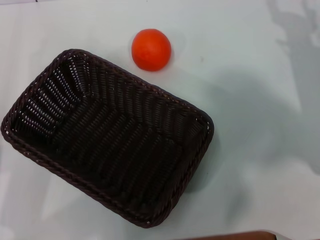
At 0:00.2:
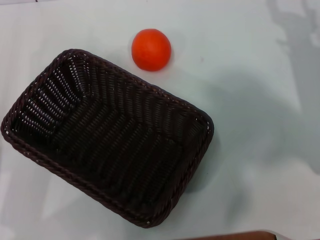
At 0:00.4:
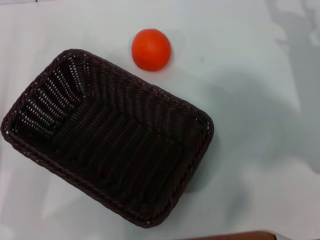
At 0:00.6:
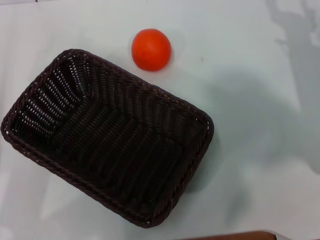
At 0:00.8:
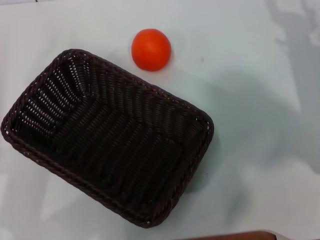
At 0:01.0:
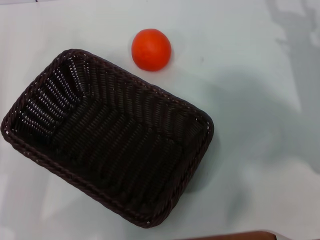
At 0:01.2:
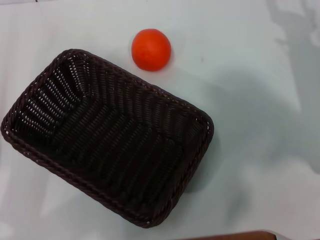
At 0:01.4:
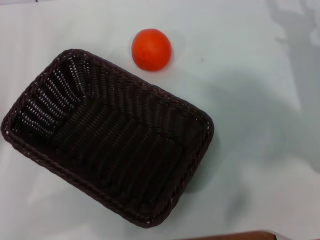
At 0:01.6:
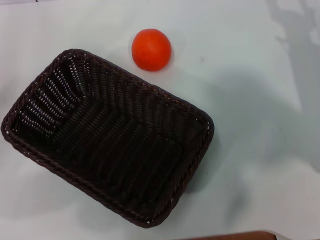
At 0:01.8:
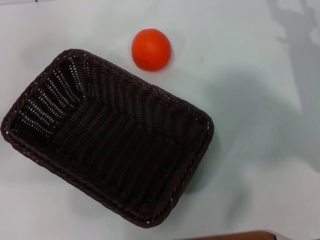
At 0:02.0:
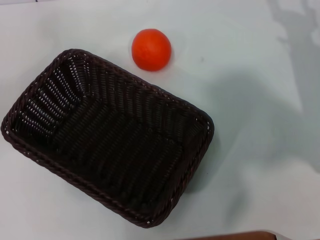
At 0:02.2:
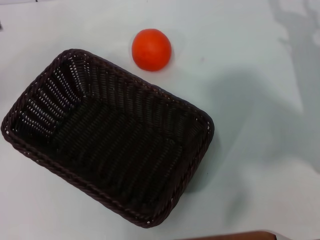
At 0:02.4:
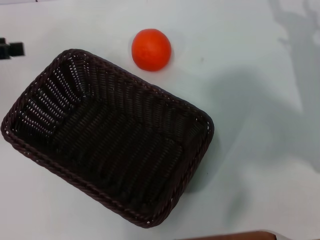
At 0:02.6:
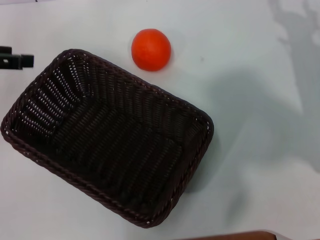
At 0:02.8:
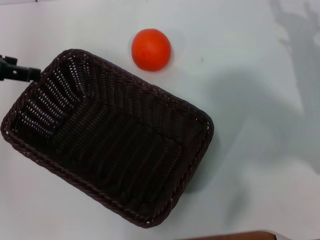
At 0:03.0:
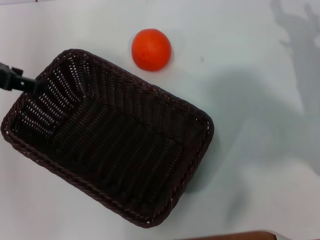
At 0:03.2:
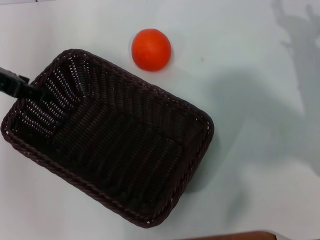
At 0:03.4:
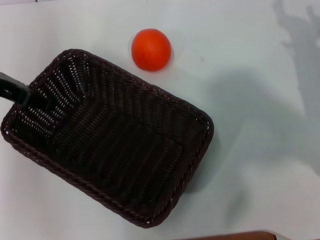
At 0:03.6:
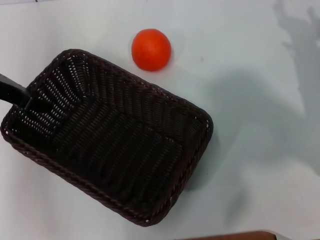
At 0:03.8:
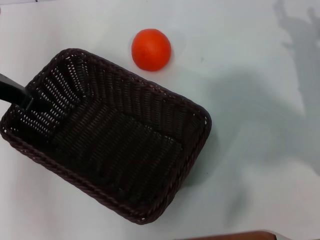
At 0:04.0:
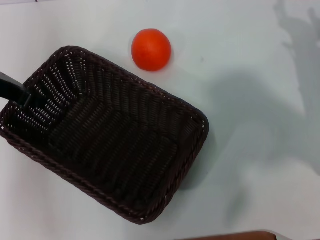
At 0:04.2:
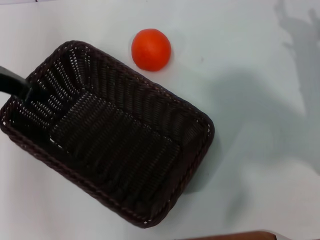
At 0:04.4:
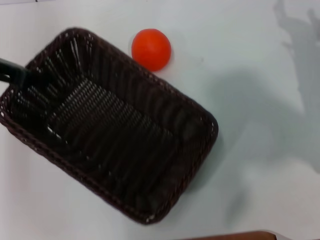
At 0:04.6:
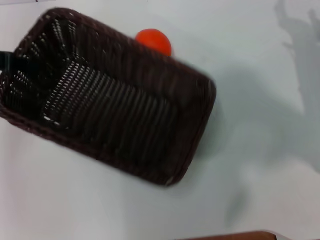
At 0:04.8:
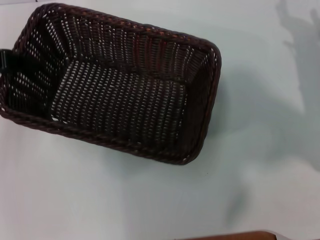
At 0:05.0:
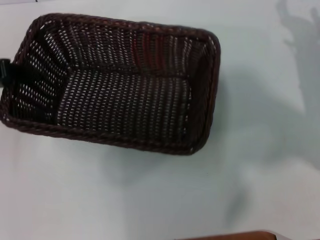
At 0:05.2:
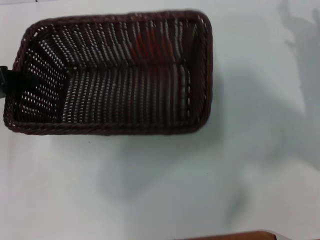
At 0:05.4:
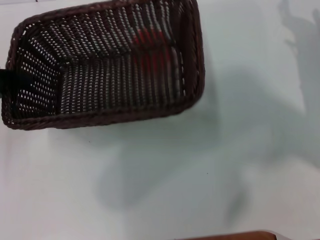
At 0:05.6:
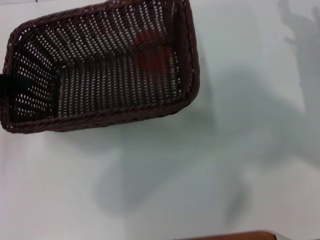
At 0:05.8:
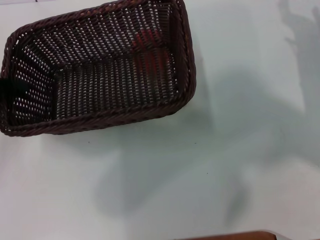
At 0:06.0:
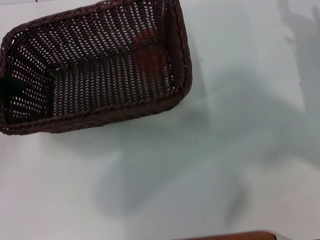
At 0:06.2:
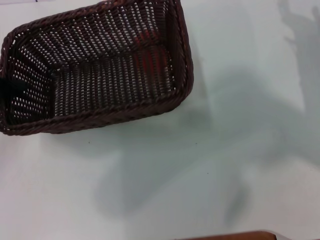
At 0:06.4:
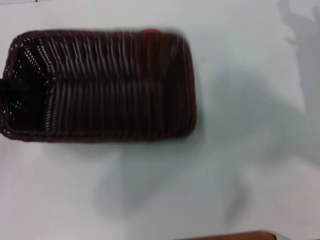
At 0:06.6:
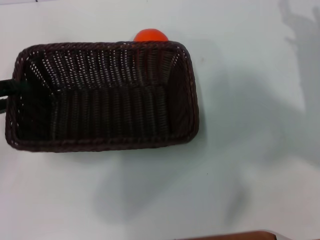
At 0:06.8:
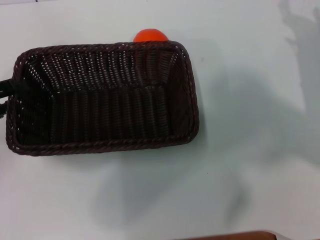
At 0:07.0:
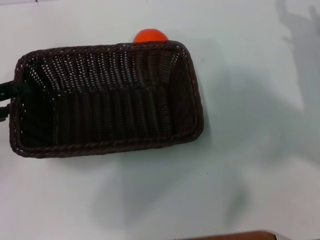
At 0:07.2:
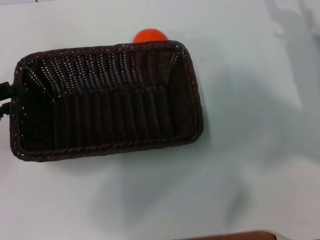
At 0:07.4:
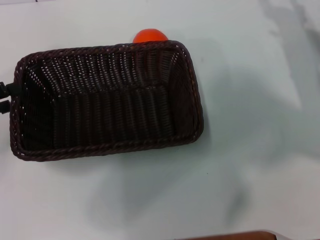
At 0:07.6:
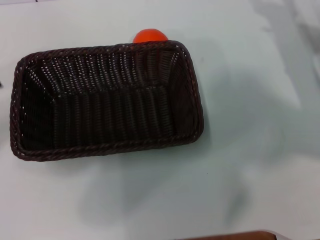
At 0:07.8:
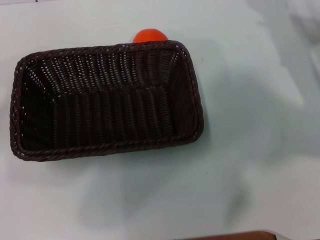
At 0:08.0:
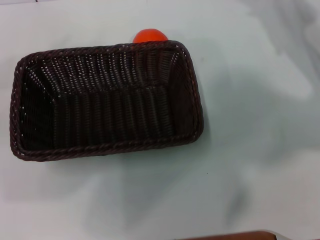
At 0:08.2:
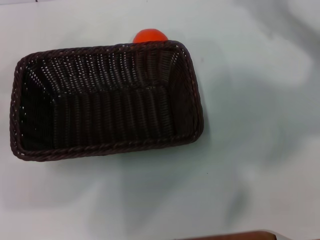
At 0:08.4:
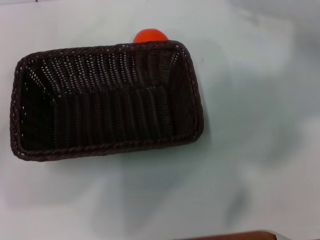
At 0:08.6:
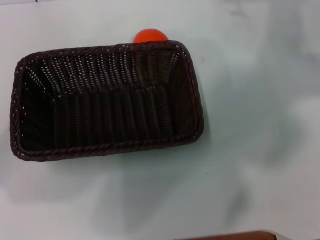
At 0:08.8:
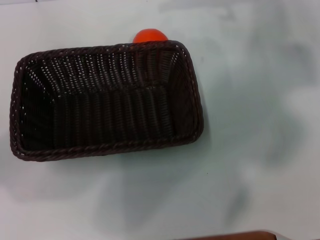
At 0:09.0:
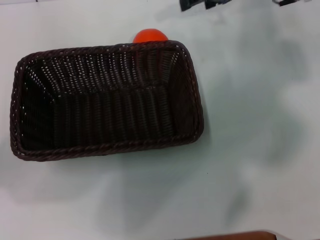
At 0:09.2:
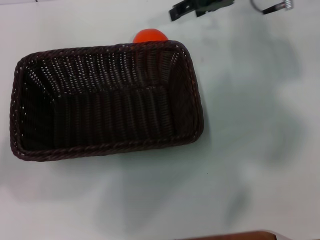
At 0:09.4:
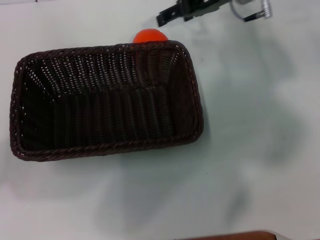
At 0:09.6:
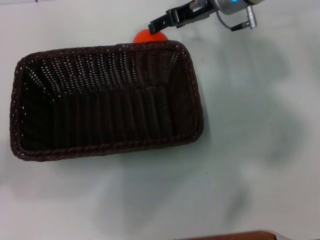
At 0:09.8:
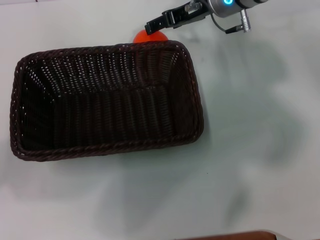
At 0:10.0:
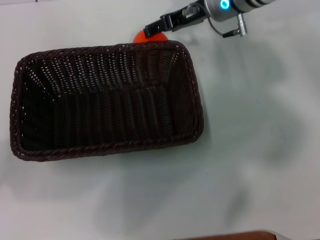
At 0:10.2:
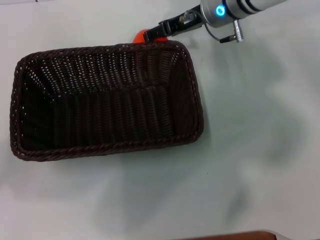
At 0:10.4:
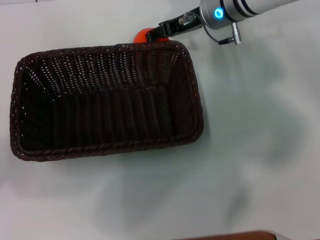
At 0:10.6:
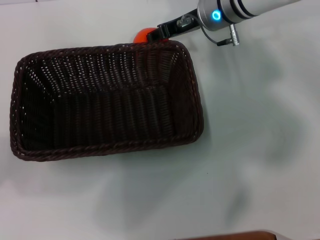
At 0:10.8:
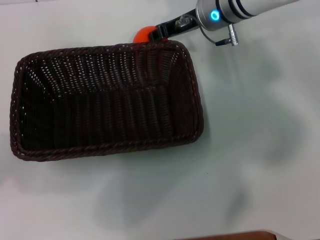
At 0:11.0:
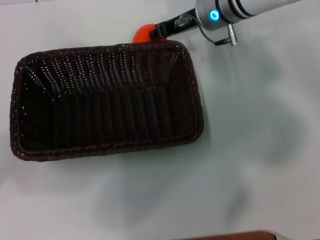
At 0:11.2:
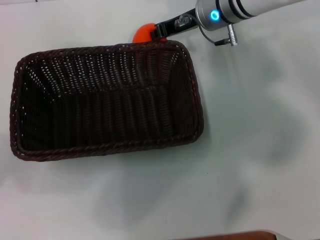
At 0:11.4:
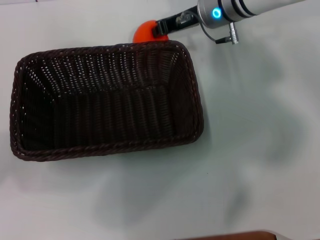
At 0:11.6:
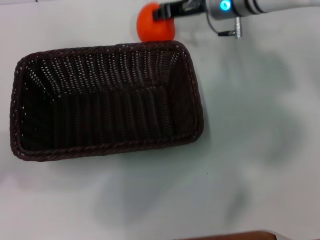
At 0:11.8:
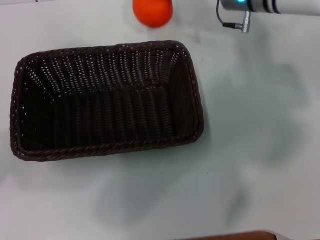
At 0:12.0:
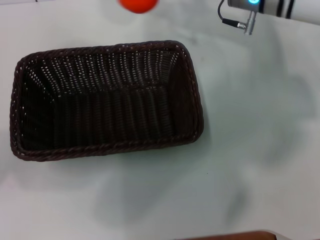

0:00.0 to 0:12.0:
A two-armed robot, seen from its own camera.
Task of the whole recording: the left gripper pick up the black basket and place it horizontally in the middle of the table, the right gripper pick up the orange and place it into the black basket.
Step, 0:00.0 to 0:04.2: Pick up the dark basket with the left gripper.
Step, 0:04.4 to 0:07.4: Place the dark basket in the center of view with the left gripper.
Step, 0:07.6 to 0:11.6: Pick up the orange with the right gripper.
0:01.6 to 0:03.0: The left gripper travels forward, upward and to the right by roughly 15 cm.
0:03.0 to 0:04.4: The left gripper closes.
0:04.4 to 0:06.0: The left gripper goes approximately 10 cm downward, to the left and backward.
0:06.0 to 0:07.6: The left gripper ends up about 5 cm from where it was, and opens up.
0:07.6 to 0:09.0: The right gripper travels upward, forward and to the left by roughly 20 cm. Meanwhile the left gripper moves roughly 5 cm.
0:09.0 to 0:10.4: The right gripper goes some 10 cm to the left and downward.
0:10.4 to 0:12.0: The right gripper moves about 5 cm, and closes its fingers.

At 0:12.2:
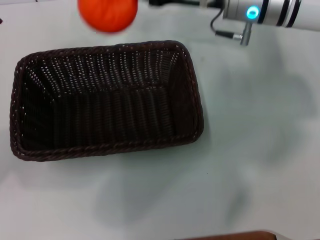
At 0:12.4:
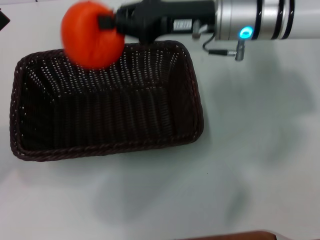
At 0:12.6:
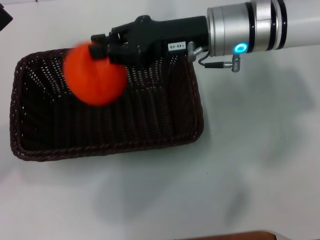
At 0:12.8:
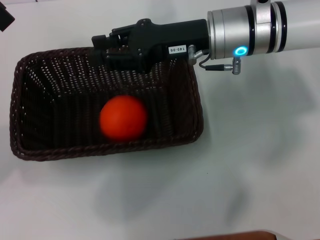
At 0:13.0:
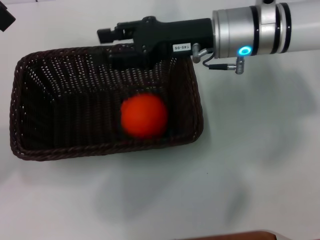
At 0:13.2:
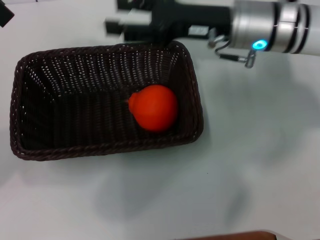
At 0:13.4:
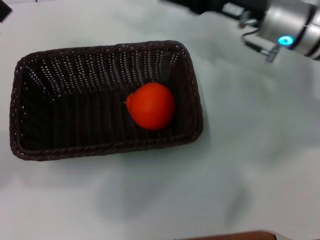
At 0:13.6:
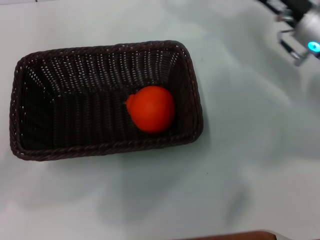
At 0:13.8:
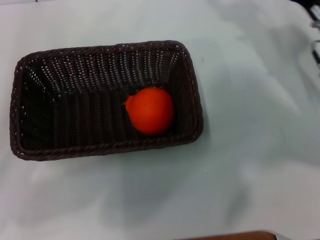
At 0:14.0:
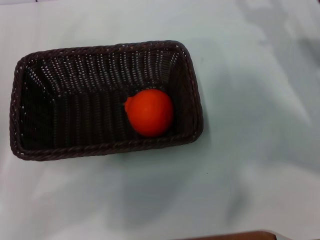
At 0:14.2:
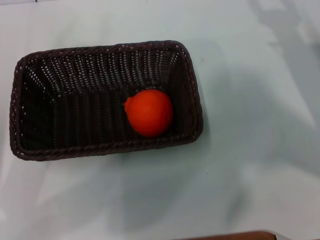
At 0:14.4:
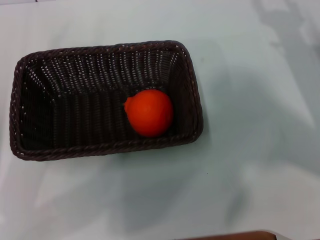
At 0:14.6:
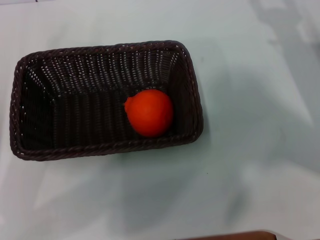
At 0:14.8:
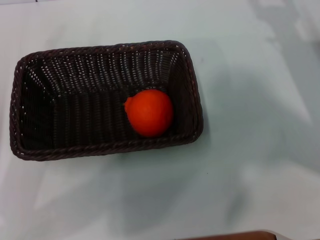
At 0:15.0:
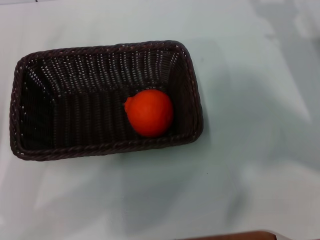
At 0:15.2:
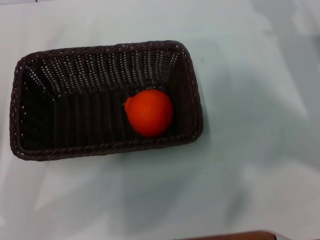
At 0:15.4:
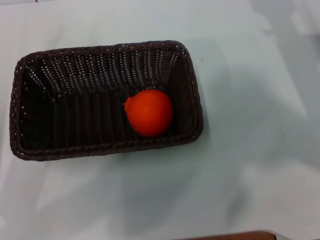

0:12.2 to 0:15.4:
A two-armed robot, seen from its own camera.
Task of the whole recording: the left gripper pick up the black basket and place it horizontally in the middle of the table, the right gripper pick up the orange and place it into the black basket.
Step, 0:12.2 to 0:12.6: Place the orange into the dark basket with the right gripper.
0:12.2 to 0:13.8: The right gripper is displaced to the right, downward and backward by approximately 15 cm, and opens up.
